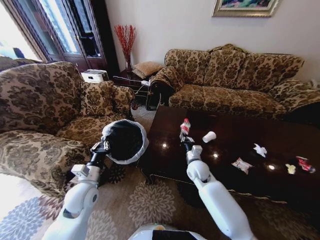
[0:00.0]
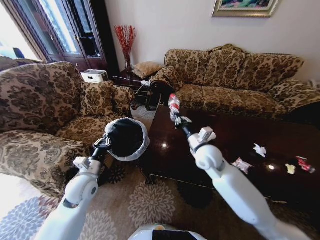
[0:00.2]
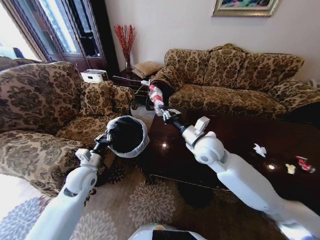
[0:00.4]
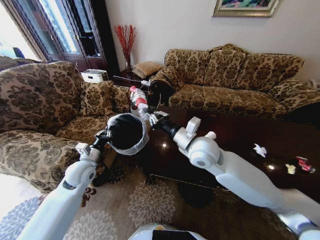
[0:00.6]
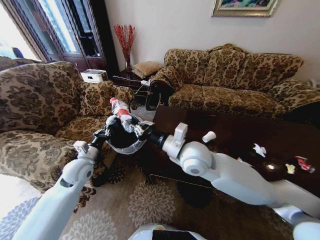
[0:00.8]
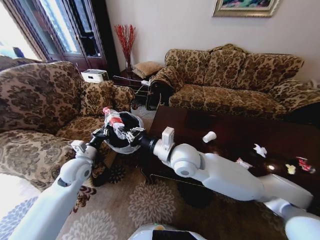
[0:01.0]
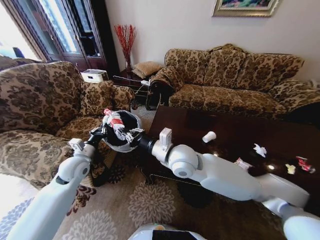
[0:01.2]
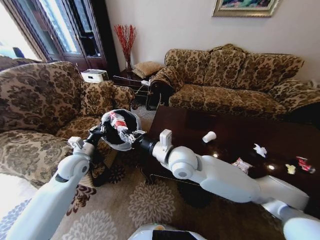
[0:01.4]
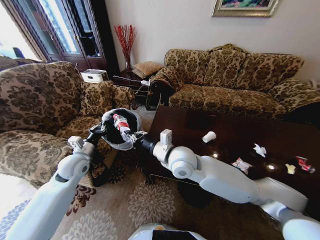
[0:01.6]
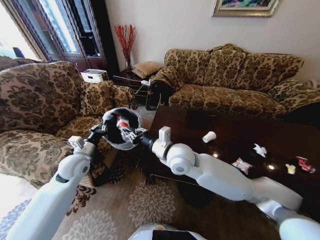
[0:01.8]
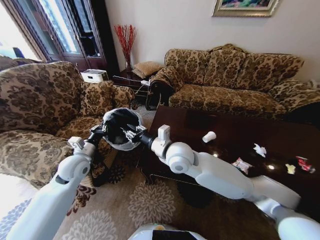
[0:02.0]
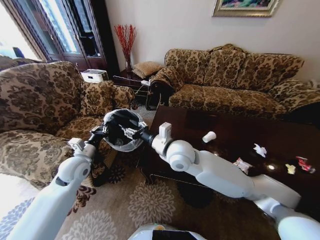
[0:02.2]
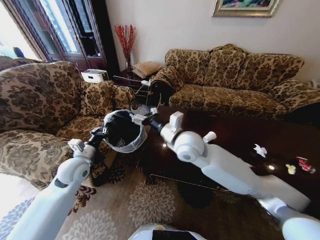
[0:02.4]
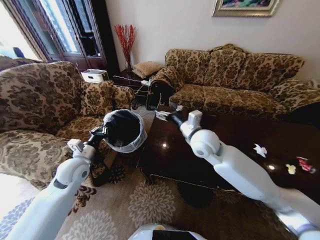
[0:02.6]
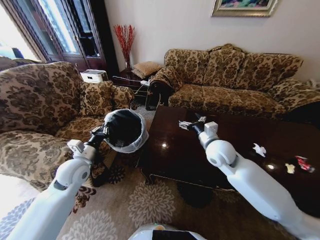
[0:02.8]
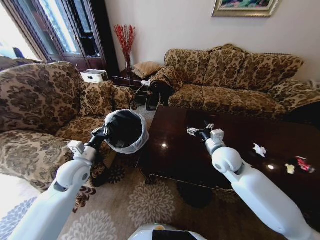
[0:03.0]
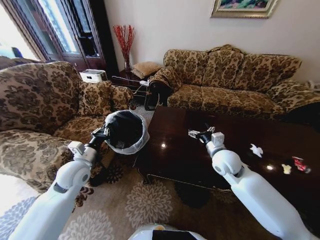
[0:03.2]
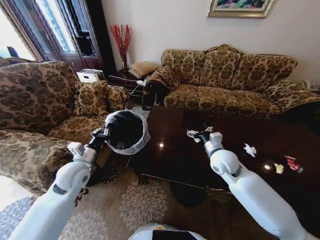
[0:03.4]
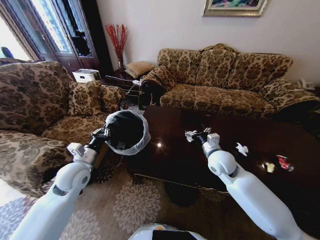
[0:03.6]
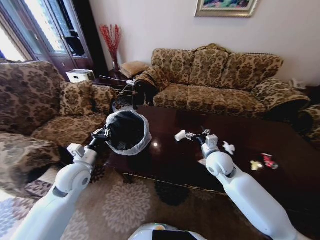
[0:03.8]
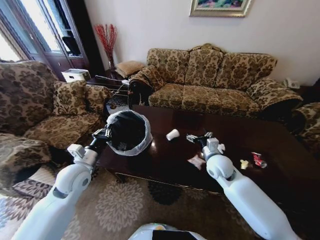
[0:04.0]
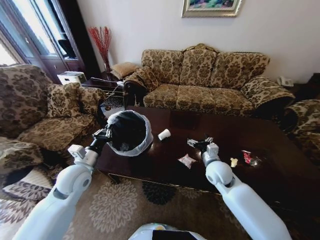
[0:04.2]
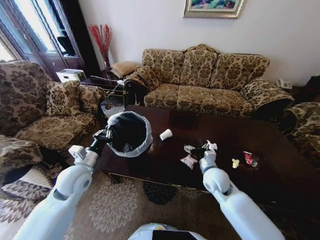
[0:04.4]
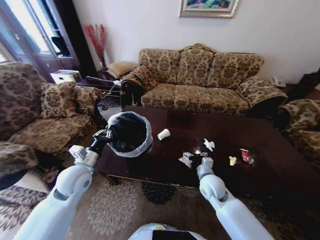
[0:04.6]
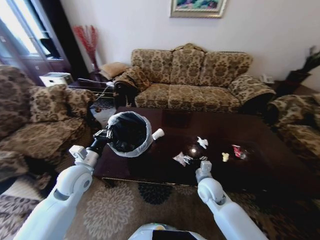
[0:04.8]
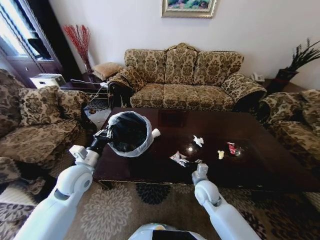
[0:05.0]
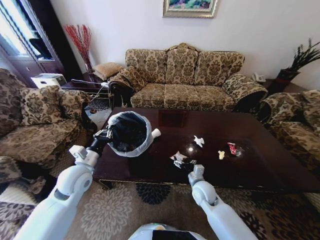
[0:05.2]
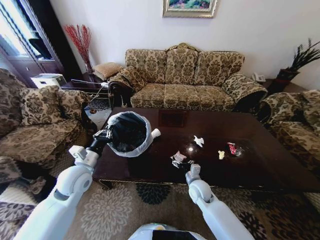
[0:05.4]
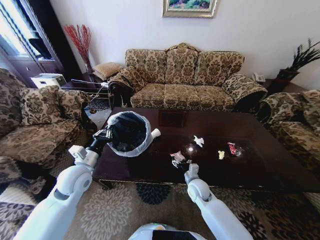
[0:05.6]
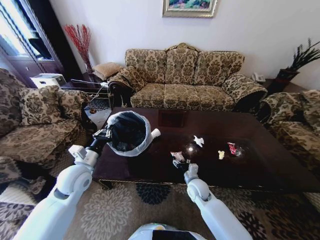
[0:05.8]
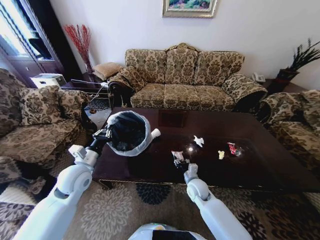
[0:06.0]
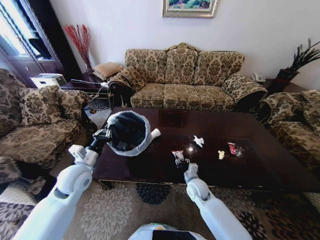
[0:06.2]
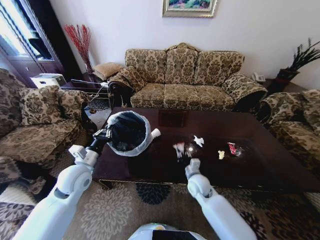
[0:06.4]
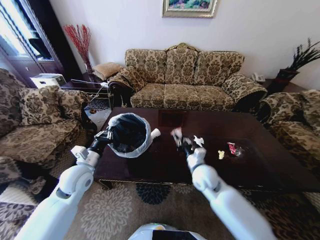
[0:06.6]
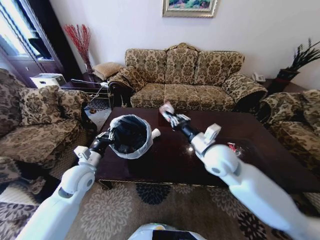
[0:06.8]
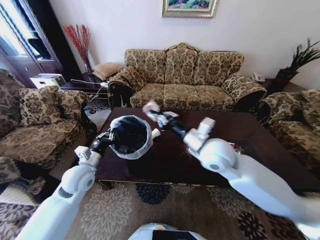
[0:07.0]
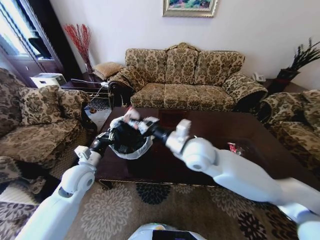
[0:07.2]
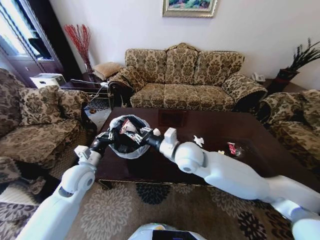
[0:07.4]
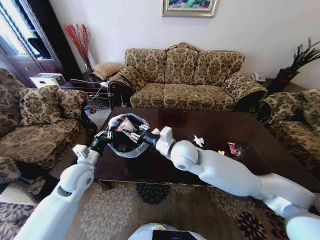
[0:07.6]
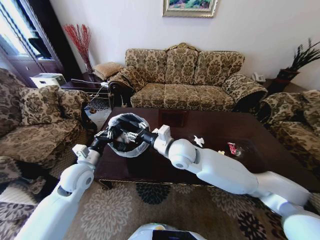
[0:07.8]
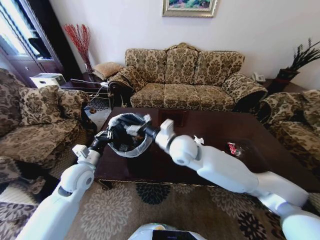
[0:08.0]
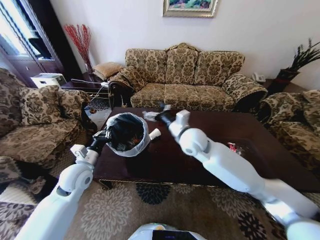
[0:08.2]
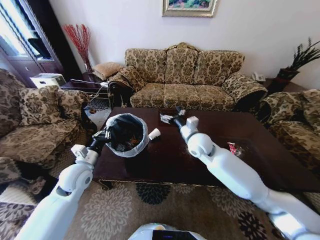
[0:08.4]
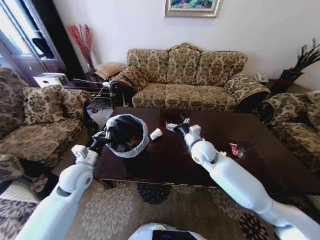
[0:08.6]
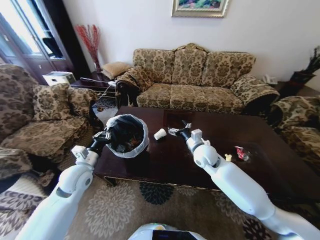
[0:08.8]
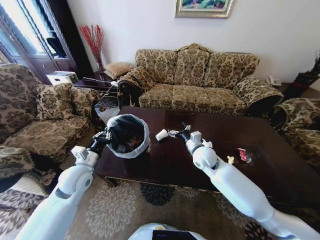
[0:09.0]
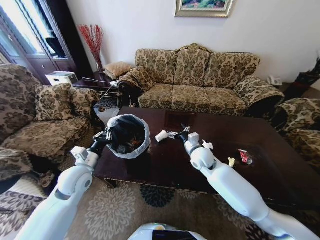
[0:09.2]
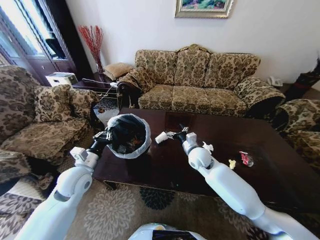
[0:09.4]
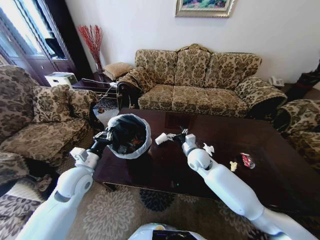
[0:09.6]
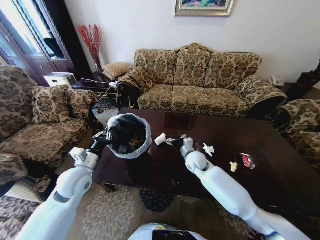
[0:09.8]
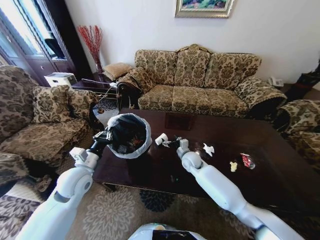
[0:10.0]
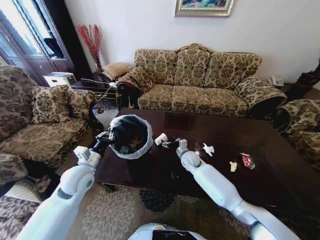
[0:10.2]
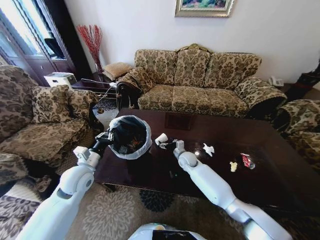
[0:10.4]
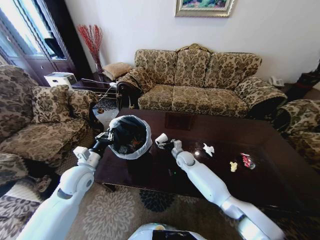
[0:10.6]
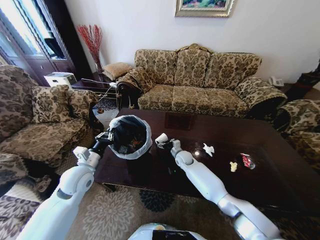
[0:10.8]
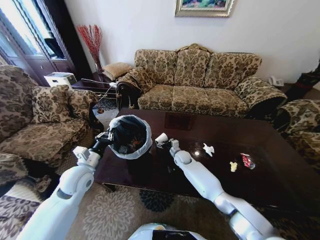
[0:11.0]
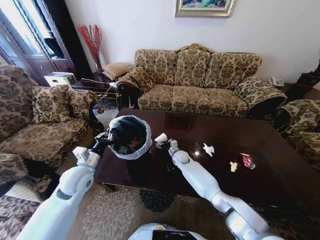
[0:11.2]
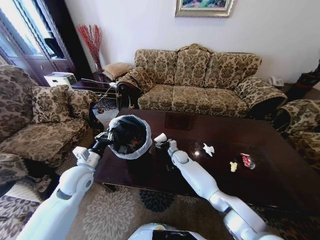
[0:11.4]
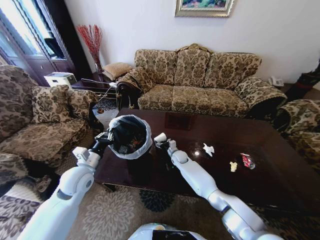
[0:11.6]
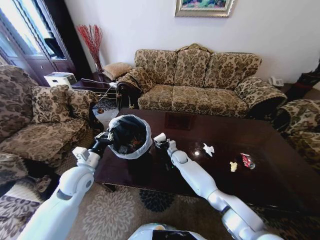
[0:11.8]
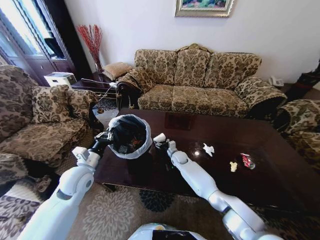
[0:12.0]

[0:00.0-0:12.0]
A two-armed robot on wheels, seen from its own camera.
Task of the whole recording: Move to the front of the table and place the trash on the table into the trash bin.
0:00.0 to 0:01.6: The left gripper is displaced forward and to the left by approximately 10 cm. Meanwhile the right gripper travels upward and to the left by some 20 cm.
0:01.6 to 0:03.0: The right gripper goes approximately 20 cm to the right, and opens.
0:03.0 to 0:04.4: The right gripper travels downward by about 10 cm.
0:04.4 to 0:06.0: The right gripper shifts approximately 10 cm downward, and closes up.
0:06.0 to 0:07.6: The right gripper is displaced upward and to the left by roughly 25 cm.
0:07.6 to 0:09.0: The right gripper shifts roughly 15 cm to the right and downward, and opens.
0:09.0 to 0:10.4: The right gripper heads downward and forward, covering about 15 cm.
0:10.4 to 0:12.0: The right gripper shifts by some 5 cm.

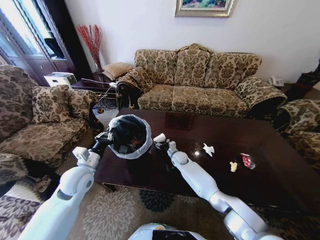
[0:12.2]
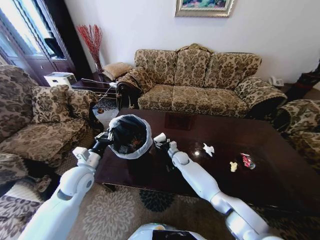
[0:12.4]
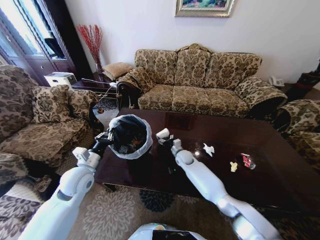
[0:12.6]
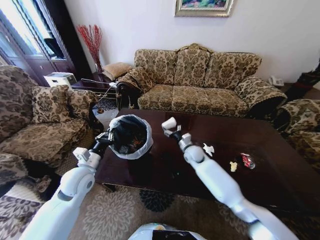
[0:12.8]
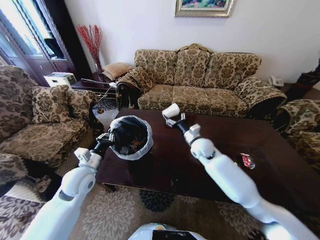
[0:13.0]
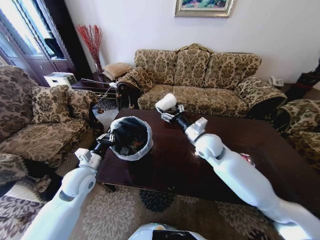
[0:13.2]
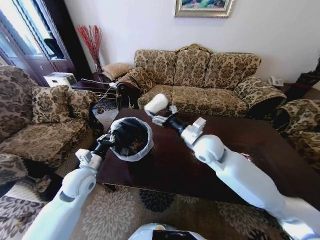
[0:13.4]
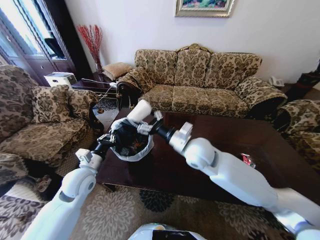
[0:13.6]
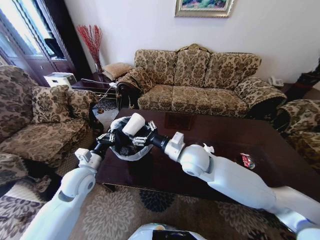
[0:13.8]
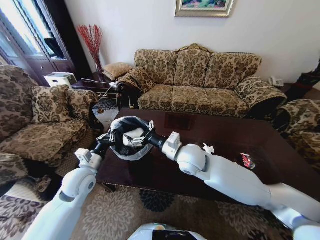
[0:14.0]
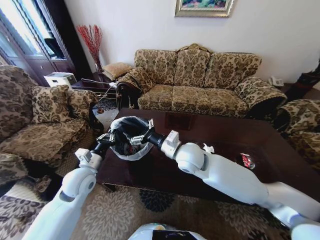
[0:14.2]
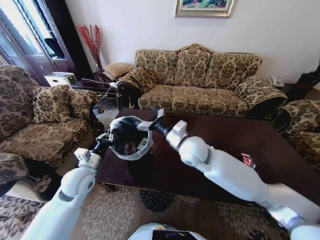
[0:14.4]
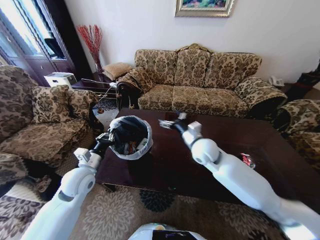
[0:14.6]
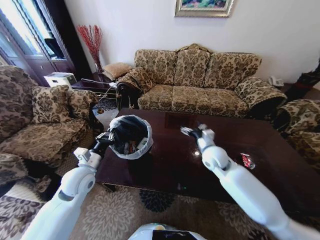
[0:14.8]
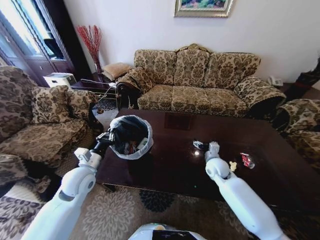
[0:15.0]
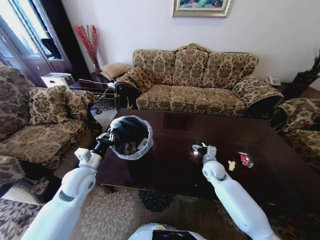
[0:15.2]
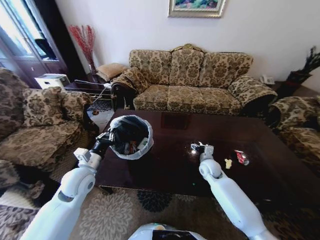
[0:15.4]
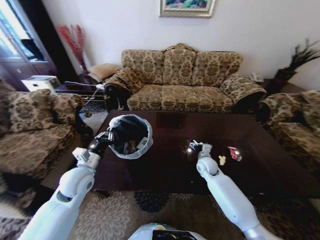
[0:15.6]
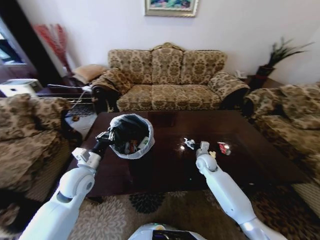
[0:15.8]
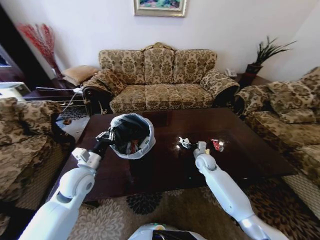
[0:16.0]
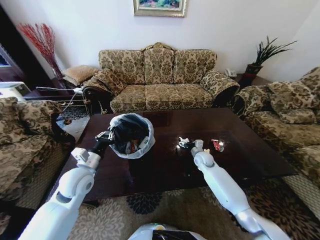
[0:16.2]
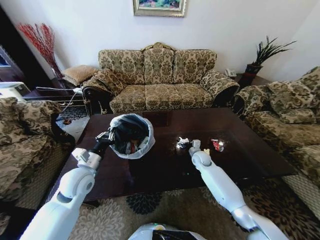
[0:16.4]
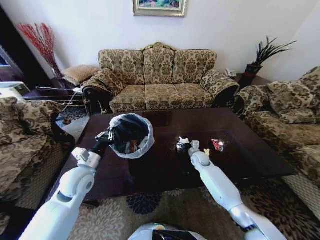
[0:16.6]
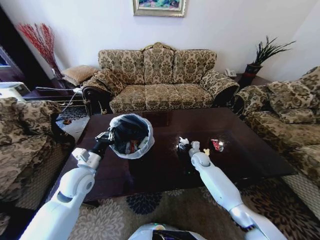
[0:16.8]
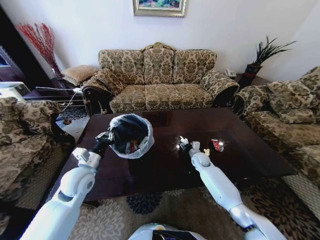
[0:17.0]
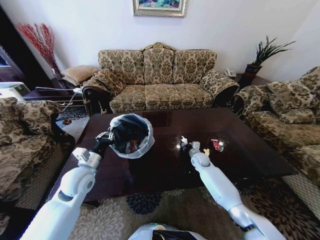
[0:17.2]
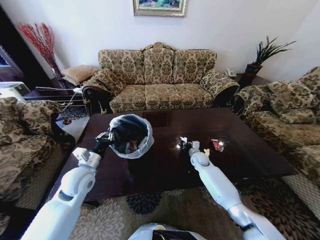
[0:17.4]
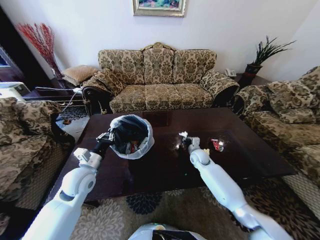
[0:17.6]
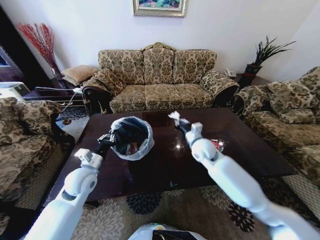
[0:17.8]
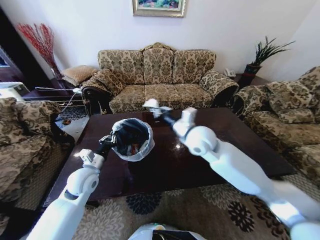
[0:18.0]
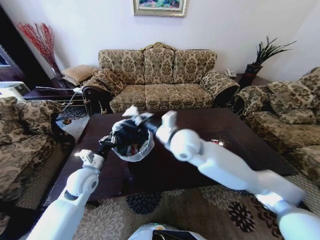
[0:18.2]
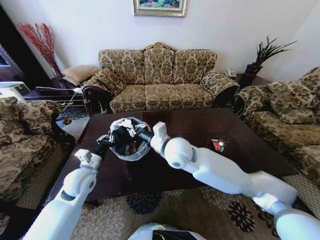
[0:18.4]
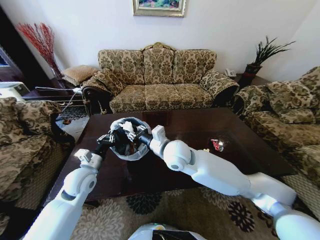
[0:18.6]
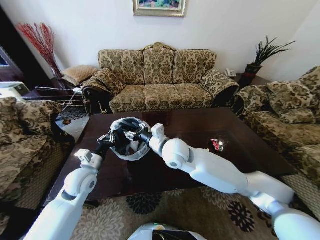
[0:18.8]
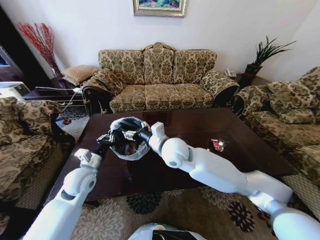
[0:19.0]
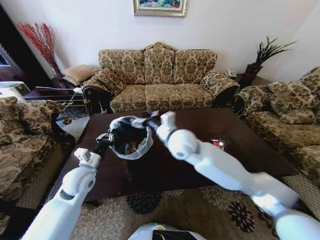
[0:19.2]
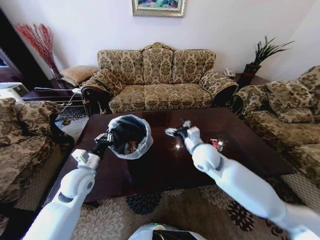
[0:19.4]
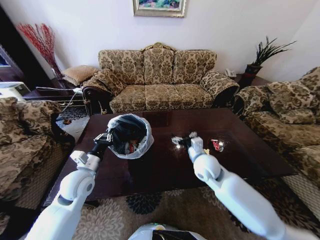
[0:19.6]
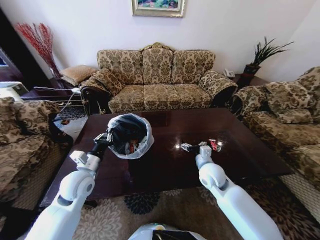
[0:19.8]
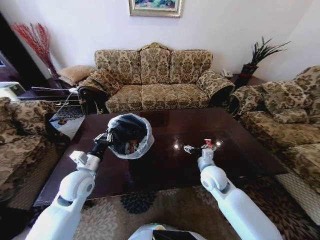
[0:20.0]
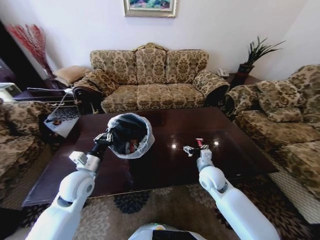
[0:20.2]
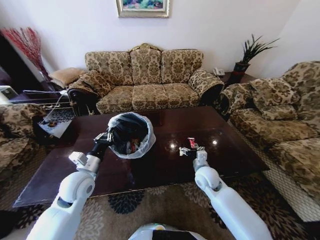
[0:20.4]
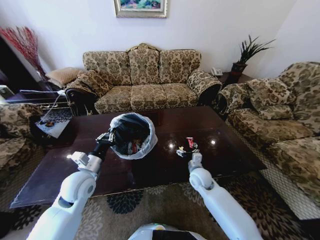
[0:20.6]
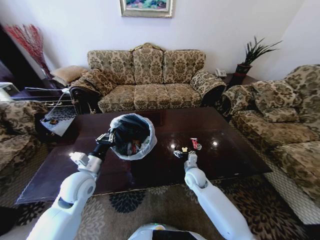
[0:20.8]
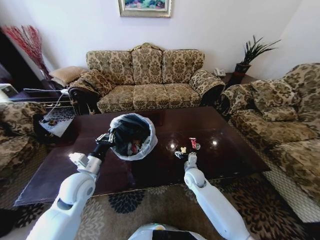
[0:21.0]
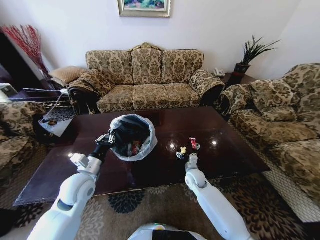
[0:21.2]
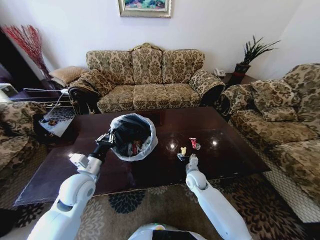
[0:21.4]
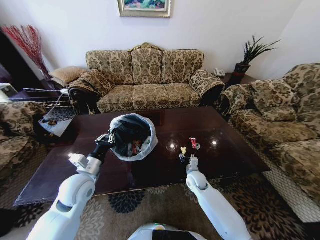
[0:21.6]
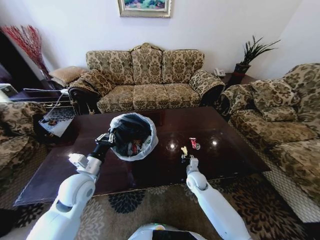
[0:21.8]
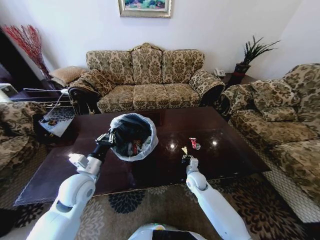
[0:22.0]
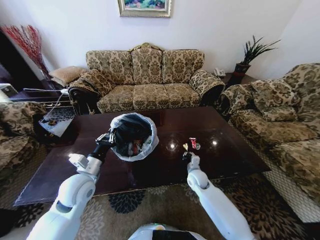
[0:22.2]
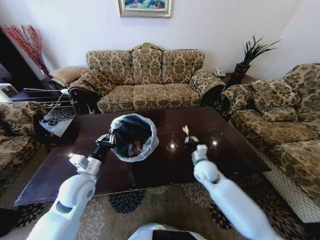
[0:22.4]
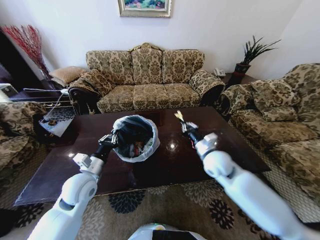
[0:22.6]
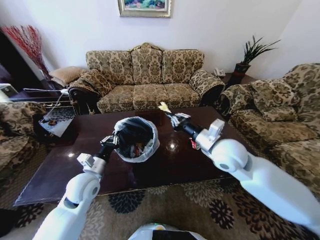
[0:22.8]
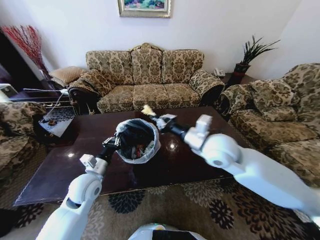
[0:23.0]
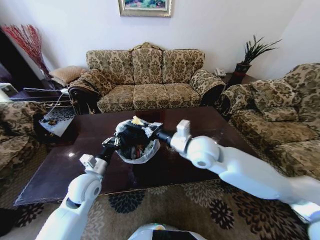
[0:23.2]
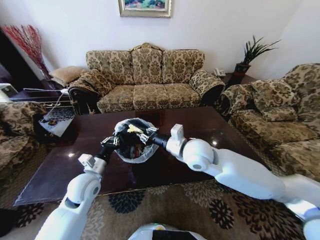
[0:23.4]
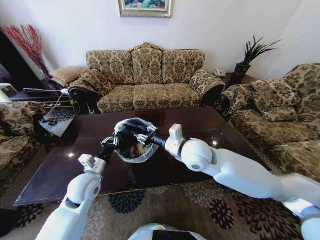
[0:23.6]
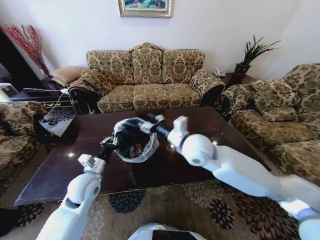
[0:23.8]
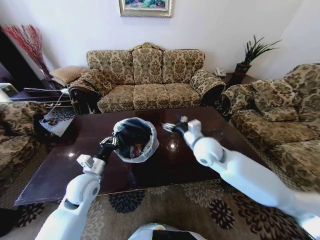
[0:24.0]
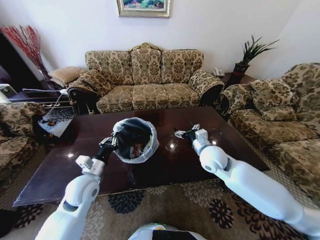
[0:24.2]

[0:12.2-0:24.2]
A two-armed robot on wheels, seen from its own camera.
Task of the whole recording: Move to the front of the table and place the trash on the table into the trash bin.
0:12.2 to 0:13.8: The right gripper moves upward and backward, roughly 30 cm.
0:13.8 to 0:15.2: The right gripper moves downward and to the right, roughly 25 cm.
0:15.2 to 0:16.6: The right gripper travels forward by roughly 10 cm.
0:16.6 to 0:18.2: The right gripper heads upward, to the left and backward, covering roughly 35 cm, and closes up.
0:18.2 to 0:19.8: The right gripper is displaced downward and to the right by roughly 20 cm, and opens.
0:19.8 to 0:21.2: The right gripper travels downward by approximately 15 cm.
0:21.2 to 0:22.6: The right gripper travels upward by about 25 cm, and closes its fingers.
0:22.6 to 0:24.2: The right gripper goes to the left and returns, approximately 10 cm each way, and opens.
